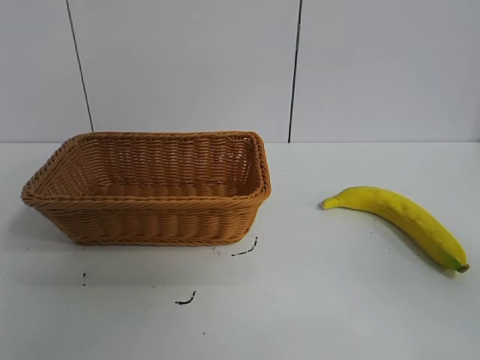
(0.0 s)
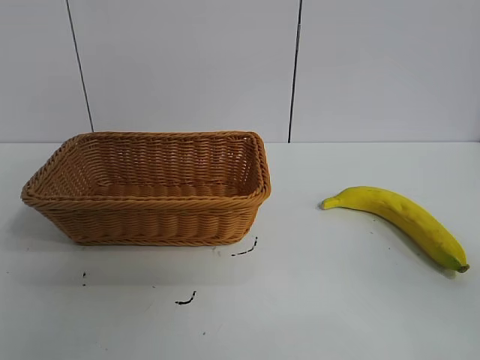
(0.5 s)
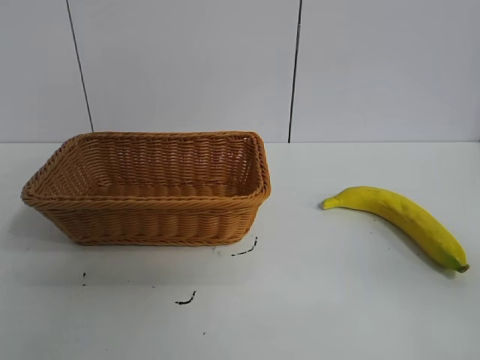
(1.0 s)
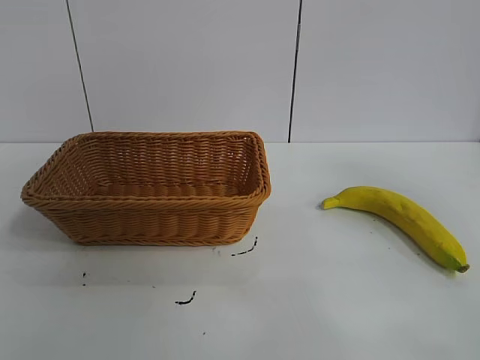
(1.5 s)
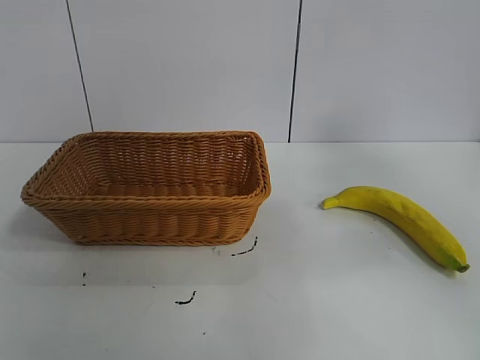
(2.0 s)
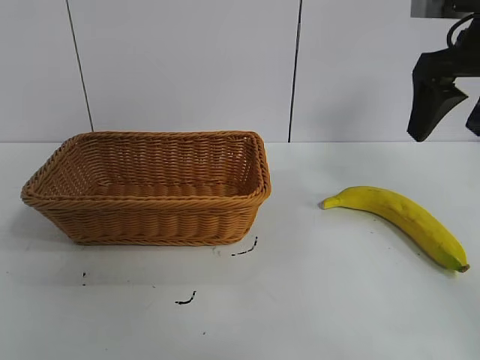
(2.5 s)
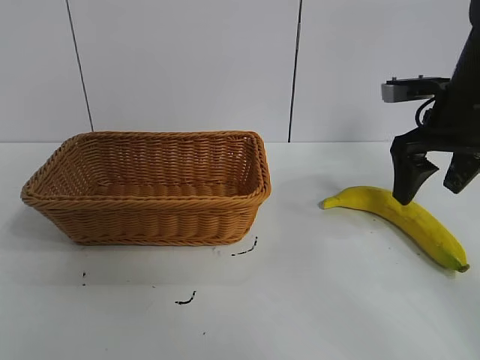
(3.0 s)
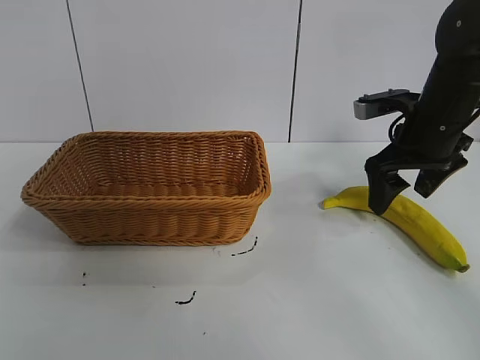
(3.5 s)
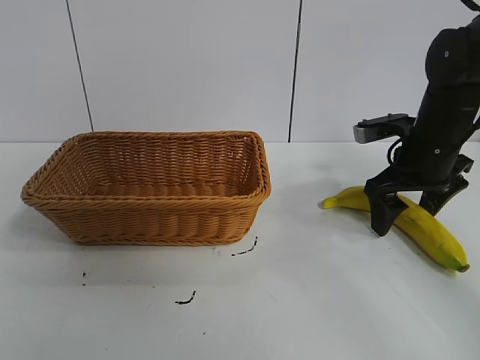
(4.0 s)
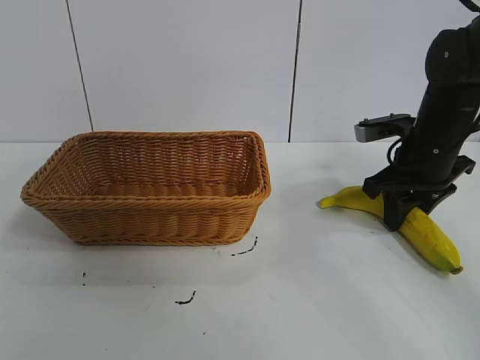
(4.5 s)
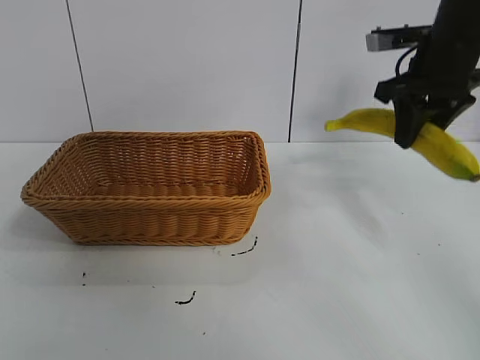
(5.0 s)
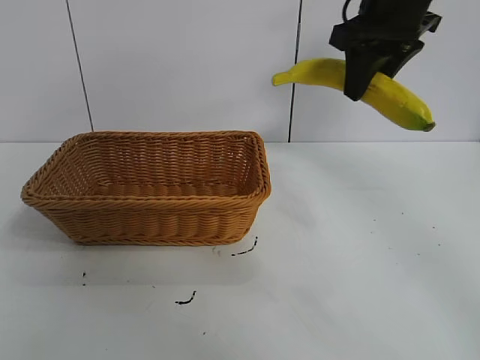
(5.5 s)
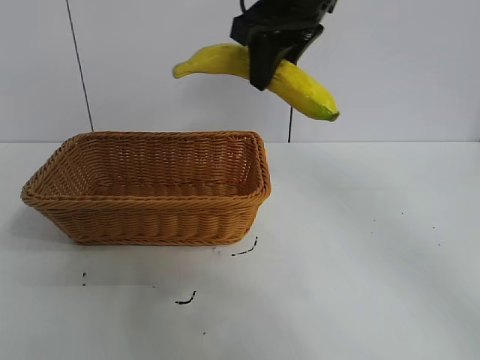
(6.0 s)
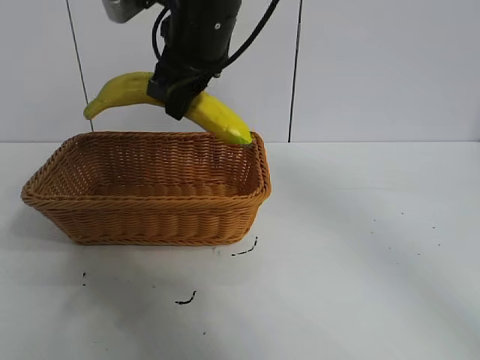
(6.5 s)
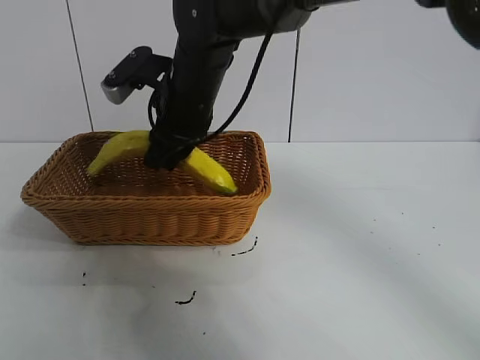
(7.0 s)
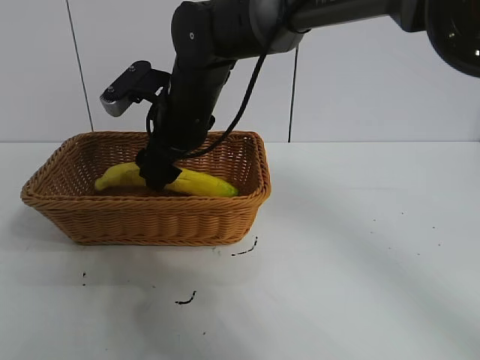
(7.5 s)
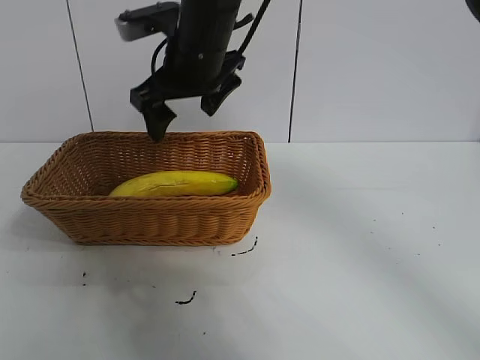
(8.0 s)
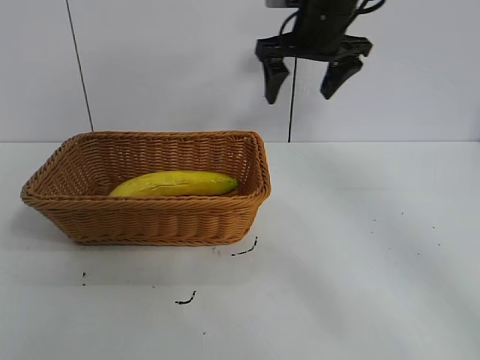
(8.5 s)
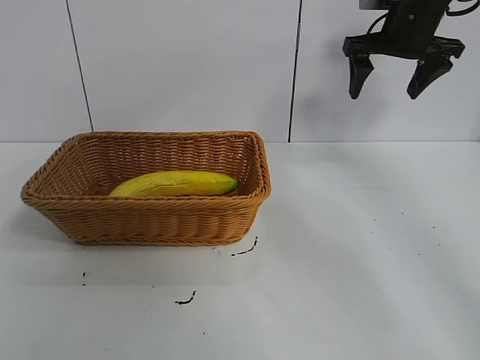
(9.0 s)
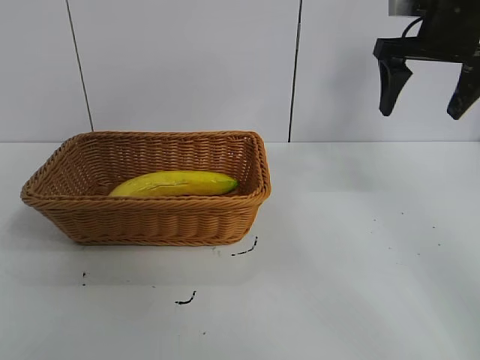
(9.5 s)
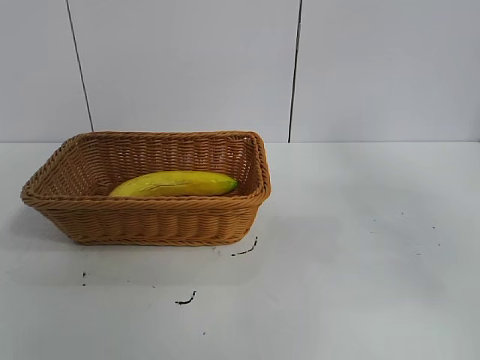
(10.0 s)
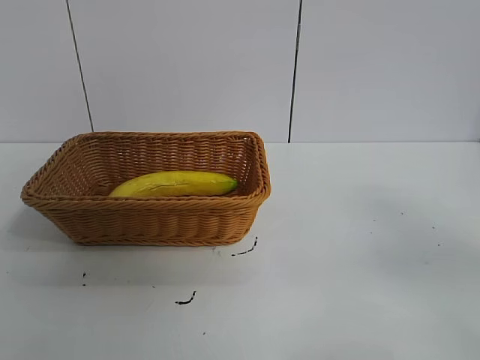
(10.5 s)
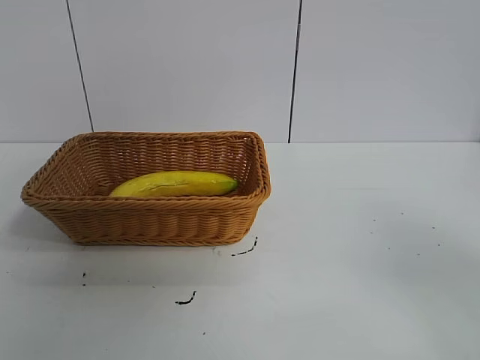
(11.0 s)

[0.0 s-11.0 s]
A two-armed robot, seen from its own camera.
Task of the whole recording: pick up the banana and put it into the basket.
Step, 1.0 to 4.5 s: Grasp the banana with right gripper.
Step, 5.0 to 7.5 s: Place the banana in the basket with right gripper.
